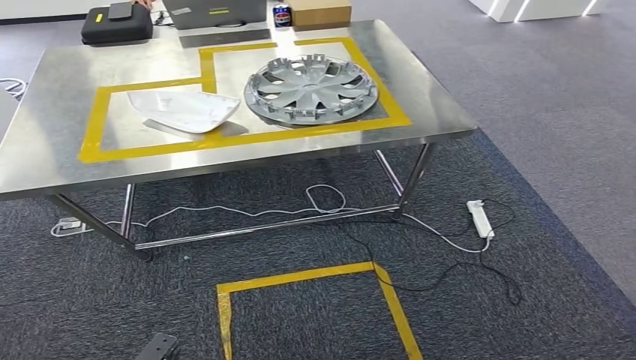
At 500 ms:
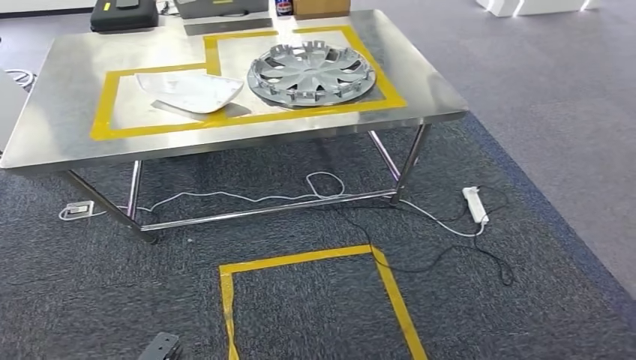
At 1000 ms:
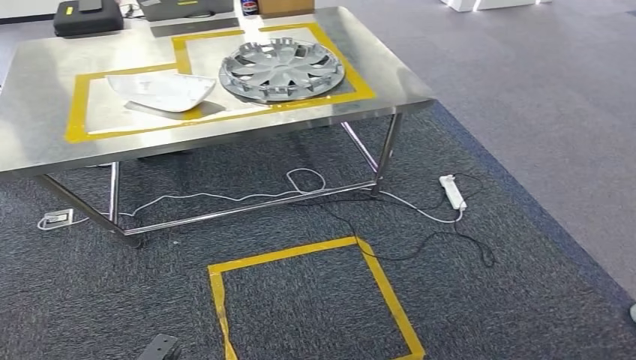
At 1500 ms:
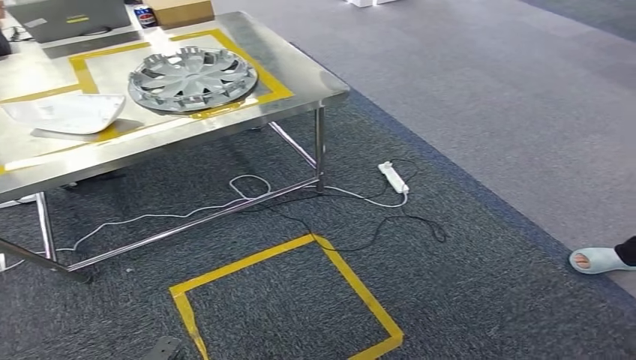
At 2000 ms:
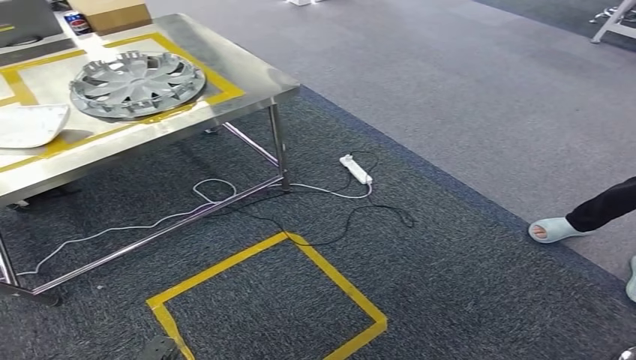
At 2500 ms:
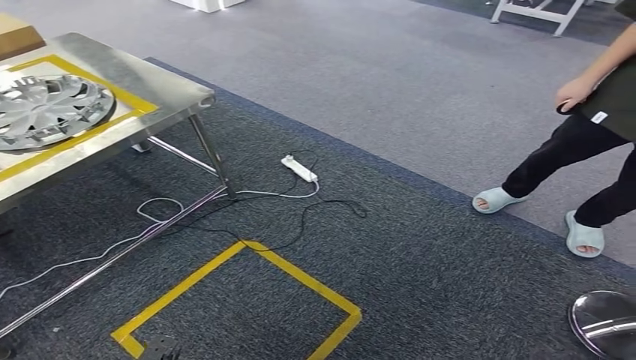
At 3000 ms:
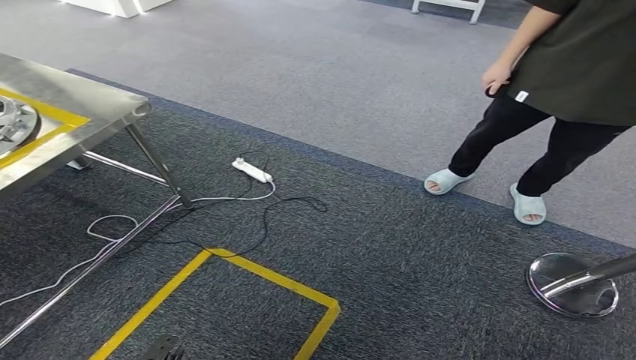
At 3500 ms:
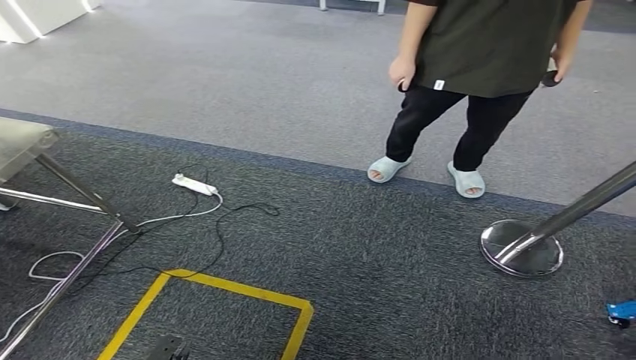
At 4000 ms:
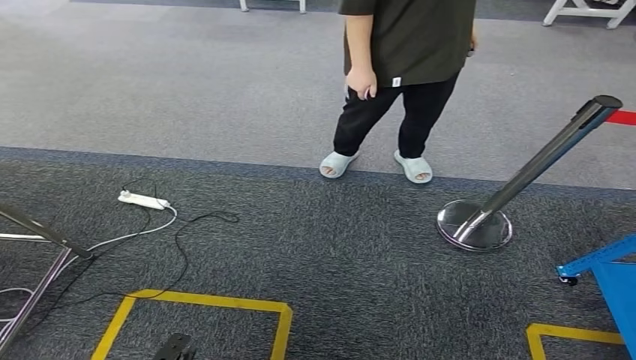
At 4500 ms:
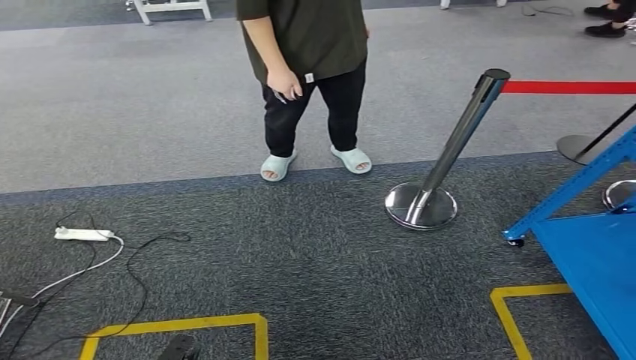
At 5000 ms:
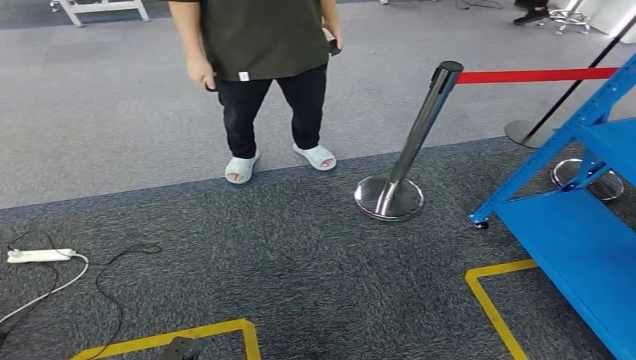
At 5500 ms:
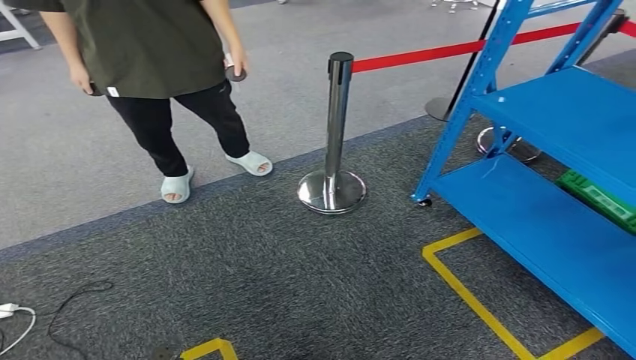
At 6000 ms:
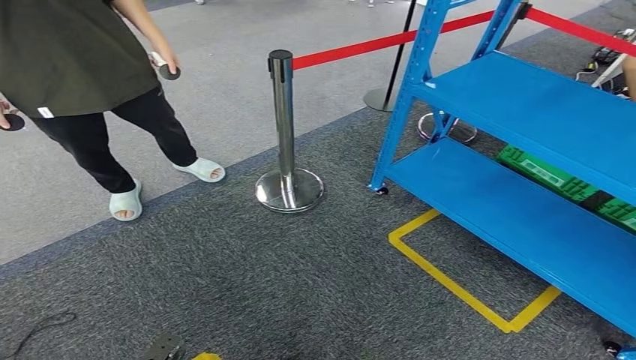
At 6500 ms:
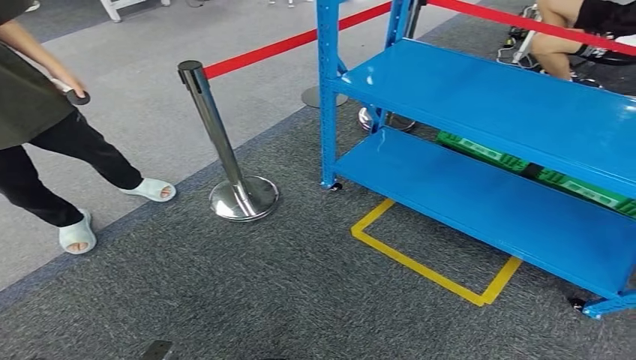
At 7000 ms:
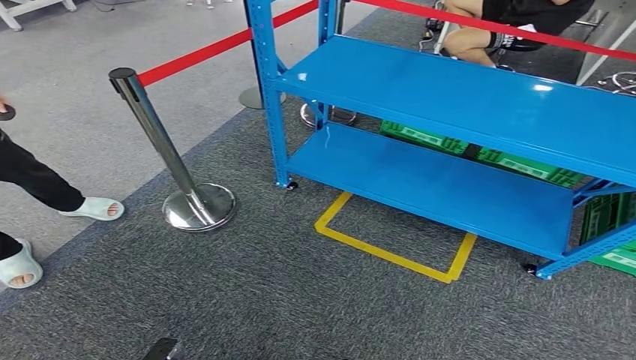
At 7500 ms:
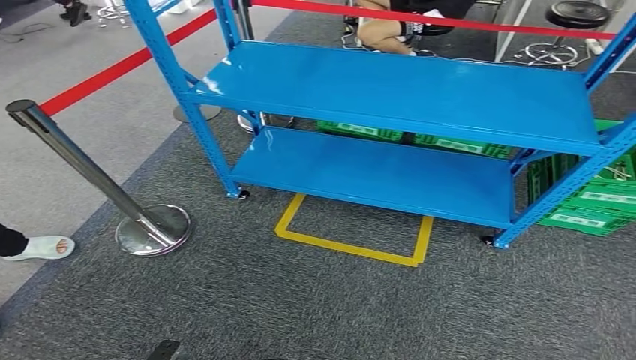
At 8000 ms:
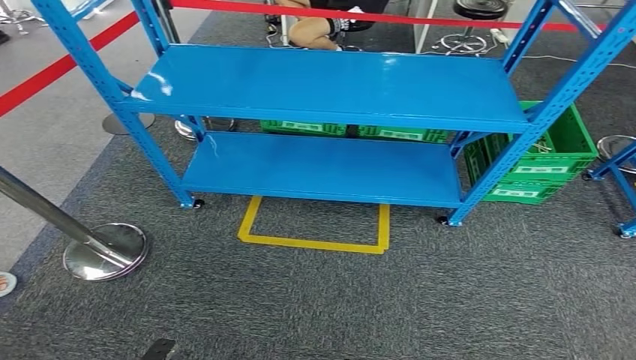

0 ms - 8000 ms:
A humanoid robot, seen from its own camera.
Step, 0 ms - 8000 ms: Return to the initial position at the workbench.
